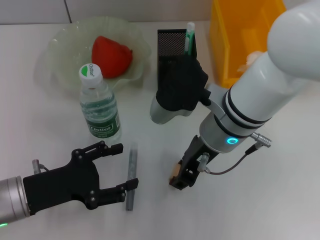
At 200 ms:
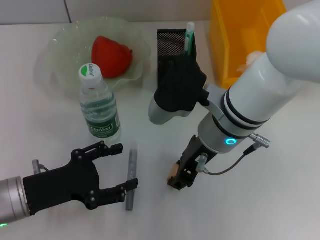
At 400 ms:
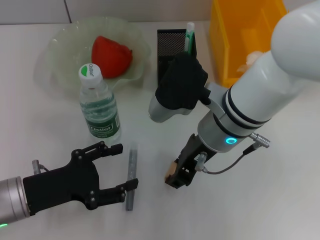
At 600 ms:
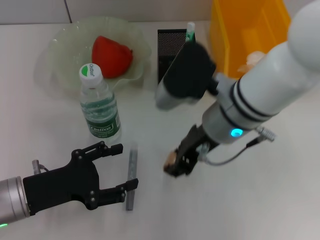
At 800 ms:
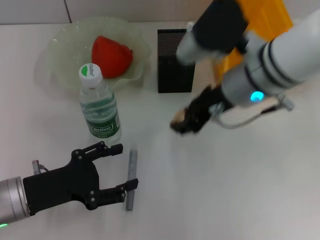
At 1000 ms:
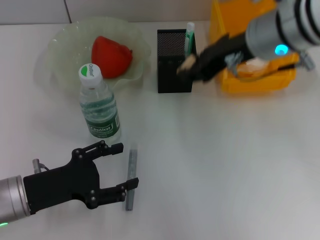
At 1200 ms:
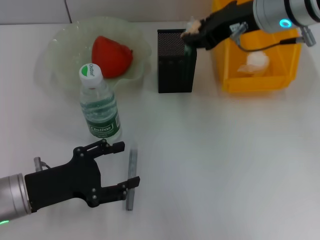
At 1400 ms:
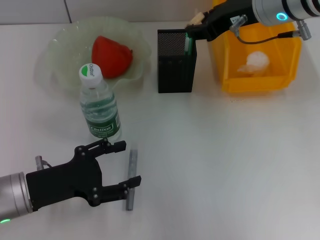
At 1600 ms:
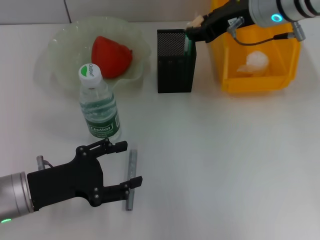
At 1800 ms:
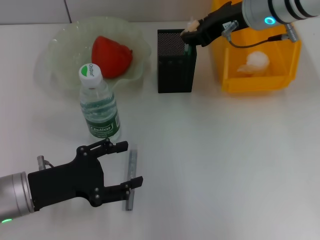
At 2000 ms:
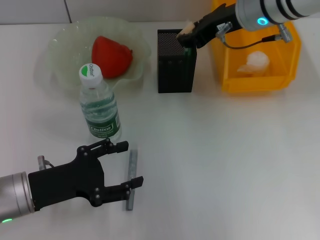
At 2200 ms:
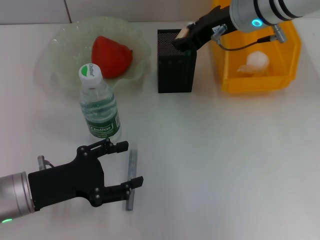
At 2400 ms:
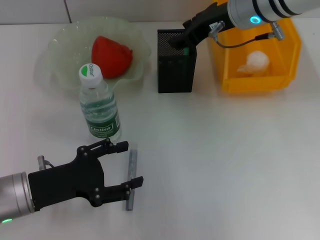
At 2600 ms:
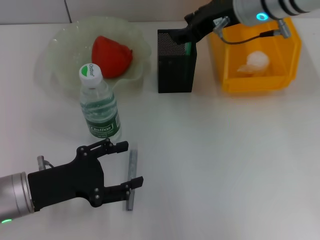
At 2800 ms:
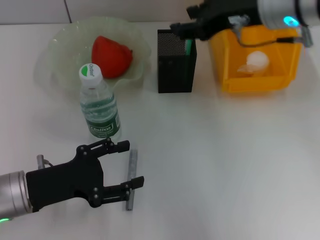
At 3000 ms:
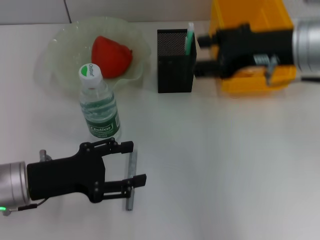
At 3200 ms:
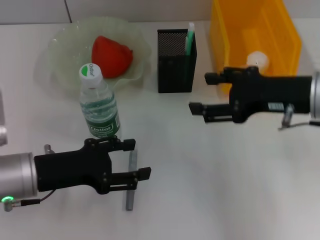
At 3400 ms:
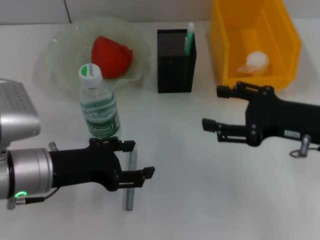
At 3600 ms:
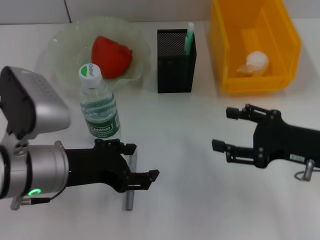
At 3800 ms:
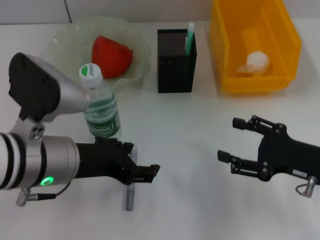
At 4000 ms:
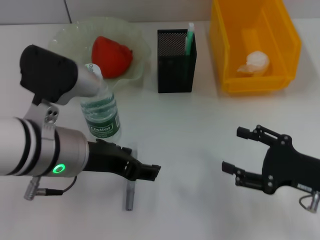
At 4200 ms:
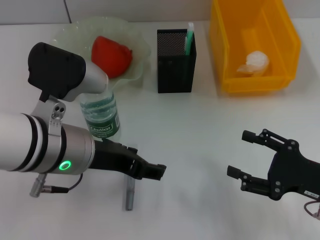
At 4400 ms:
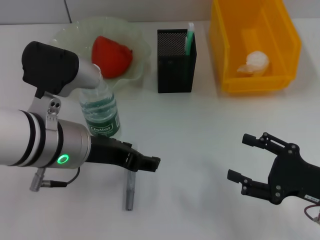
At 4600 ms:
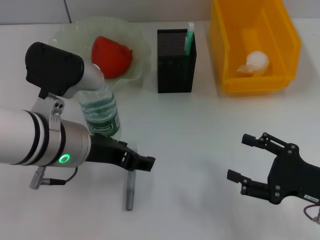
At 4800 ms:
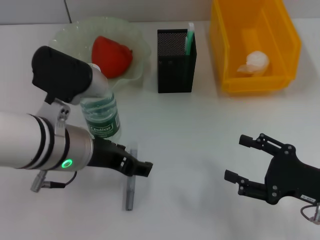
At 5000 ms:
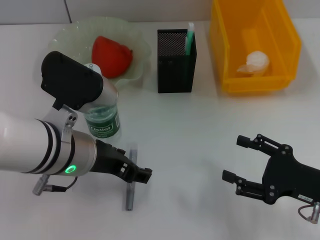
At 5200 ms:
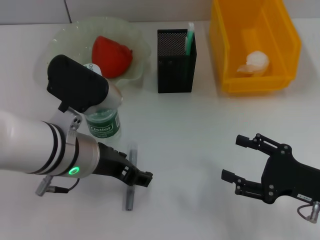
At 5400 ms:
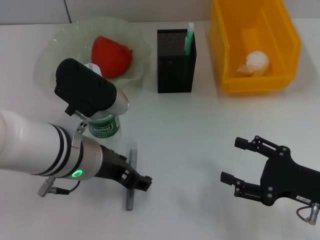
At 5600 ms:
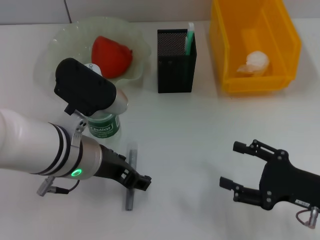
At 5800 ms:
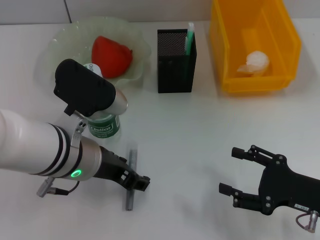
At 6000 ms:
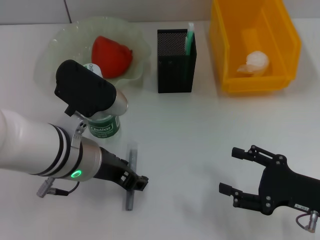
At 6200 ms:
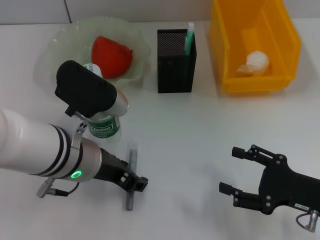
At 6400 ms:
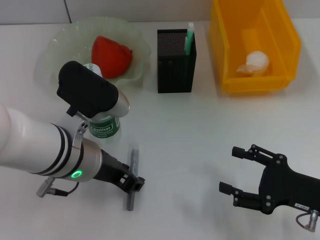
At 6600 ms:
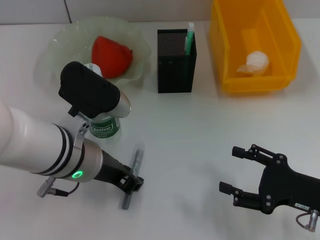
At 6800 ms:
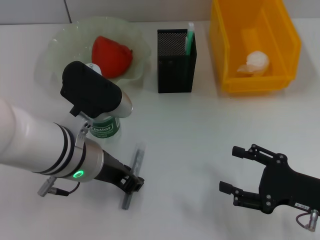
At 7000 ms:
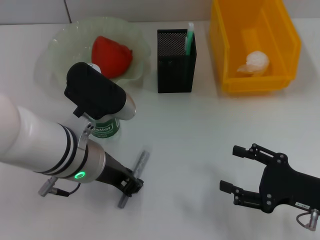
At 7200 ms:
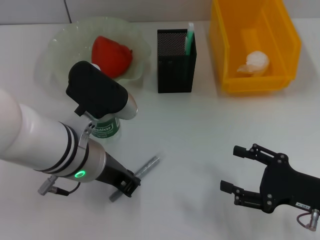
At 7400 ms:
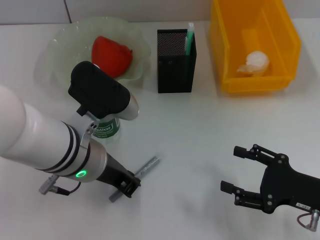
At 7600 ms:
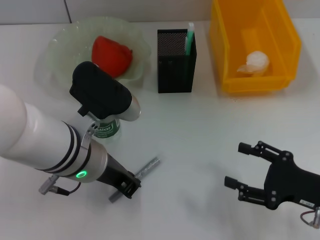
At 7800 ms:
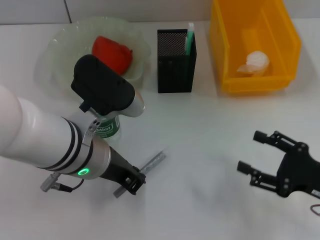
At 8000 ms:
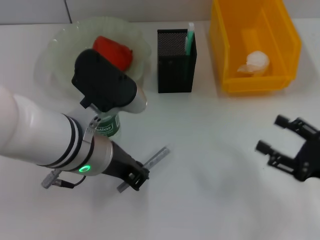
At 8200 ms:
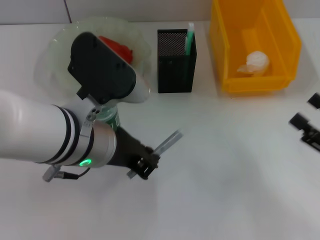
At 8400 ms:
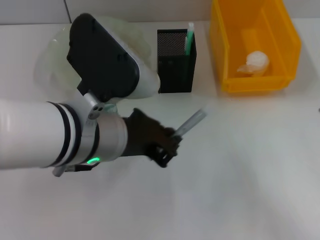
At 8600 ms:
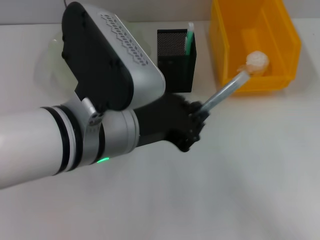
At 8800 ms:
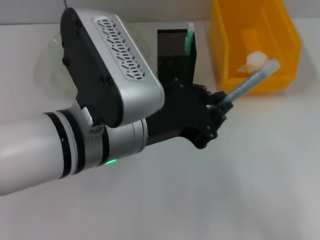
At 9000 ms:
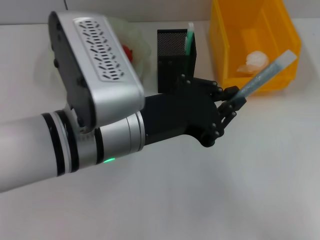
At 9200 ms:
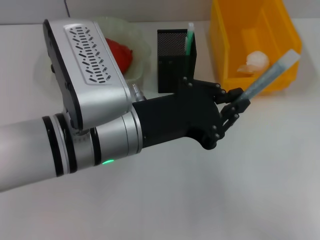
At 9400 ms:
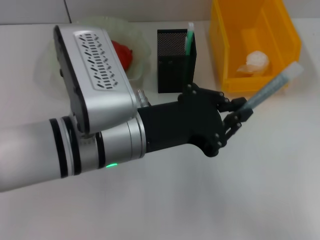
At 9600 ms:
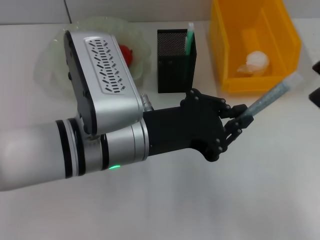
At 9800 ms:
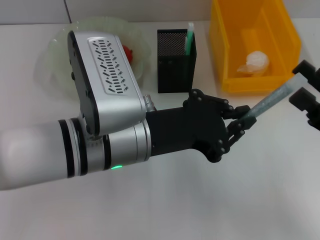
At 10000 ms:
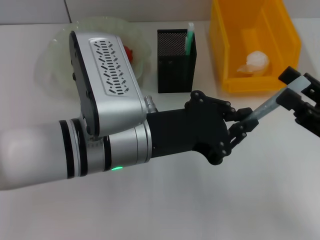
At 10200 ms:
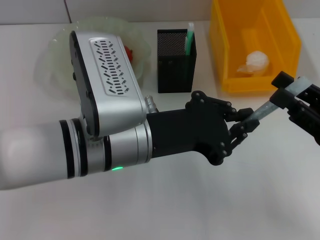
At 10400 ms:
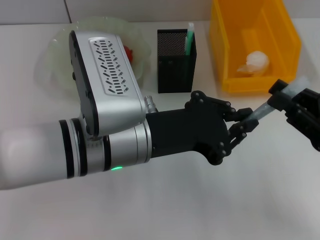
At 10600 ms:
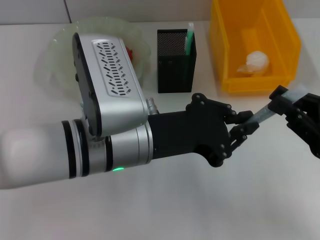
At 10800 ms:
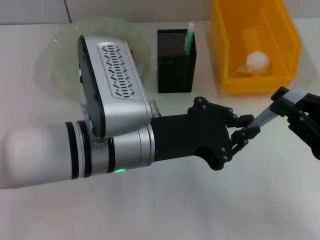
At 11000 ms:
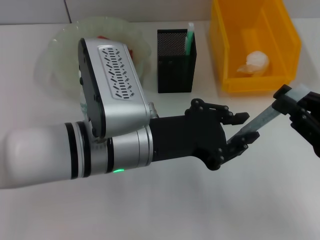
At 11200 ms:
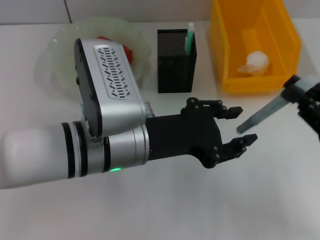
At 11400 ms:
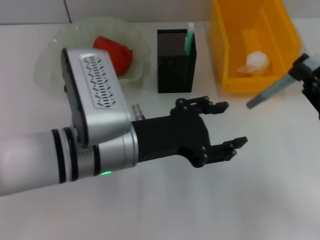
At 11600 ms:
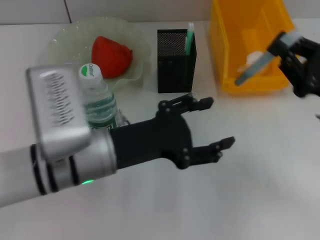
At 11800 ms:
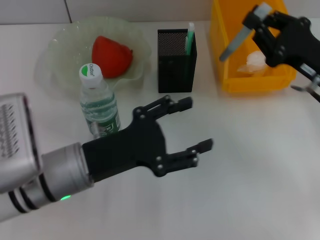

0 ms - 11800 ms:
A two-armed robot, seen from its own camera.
Step, 400 ms - 2200 ms: Put the eraser into the pen holder with the right hand.
Step, 2400 ms - 7400 ms: Grab the gray glue with the left hand.
Step, 7800 ms - 10600 ms: Pass the gray glue from the left hand to the right hand.
0 ms - 1400 ms: The right gripper heads forward, upward and to the right, covering some 15 cm.
1400 ms - 3000 ms: The right gripper is displaced backward by some 10 cm.
3000 ms - 4400 ms: The right gripper is displaced downward, backward and to the right by approximately 20 cm. Meanwhile the left gripper moves to the right and upward, some 10 cm.
6000 ms - 7400 ms: The left gripper closes up.
7400 ms - 8800 ms: The left gripper is displaced upward by some 5 cm. The right gripper goes approximately 5 cm to the right and upward.
8800 ms - 10400 ms: The right gripper heads forward, covering approximately 5 cm, and closes its fingers.
10400 ms - 11800 ms: The left gripper heads downward and to the left, covering about 10 cm, and opens its fingers. The right gripper travels forward by approximately 10 cm, and closes its fingers.

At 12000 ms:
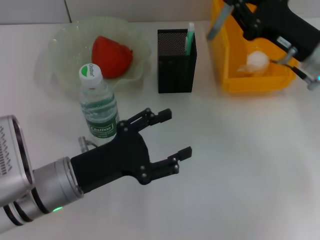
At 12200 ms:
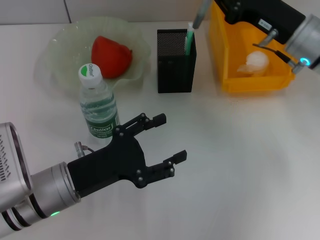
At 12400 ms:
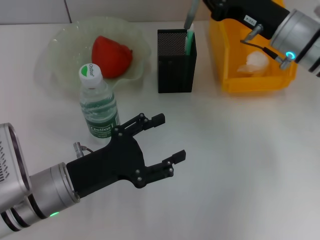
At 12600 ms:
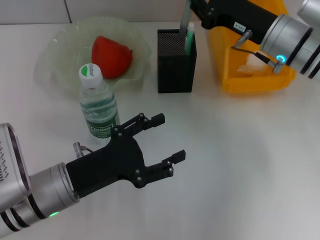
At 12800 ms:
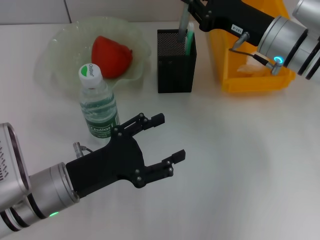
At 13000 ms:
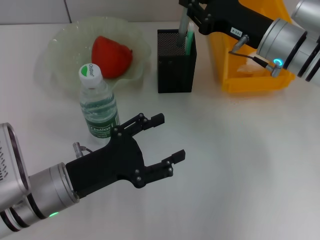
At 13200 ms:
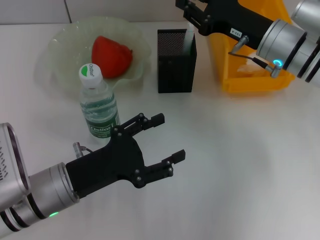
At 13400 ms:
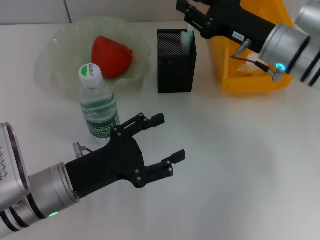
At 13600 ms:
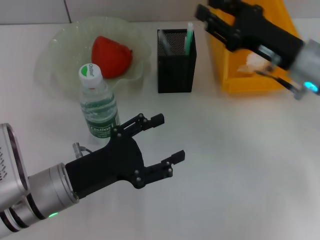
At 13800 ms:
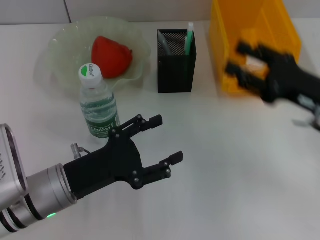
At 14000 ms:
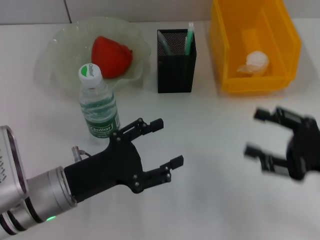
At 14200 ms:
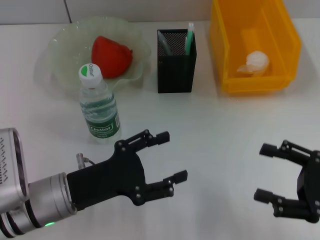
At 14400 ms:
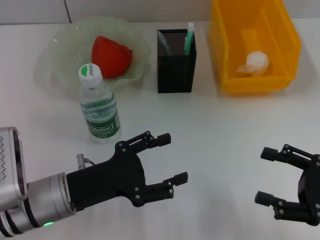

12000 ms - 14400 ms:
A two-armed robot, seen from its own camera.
Step, 12000 ms - 13400 ms: Place the gray glue into the pen holder with the right hand.
12000 ms - 13200 ms: The right gripper moves to the left, approximately 5 cm.
13200 ms - 14400 ms: The right gripper heads backward and to the right, covering some 25 cm, and opens up.
